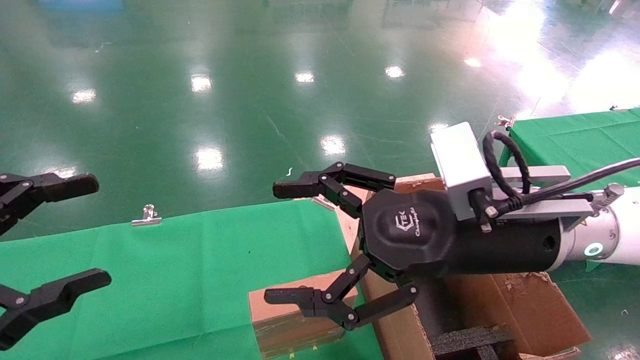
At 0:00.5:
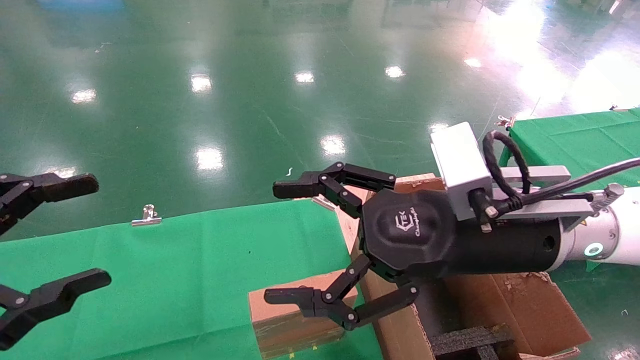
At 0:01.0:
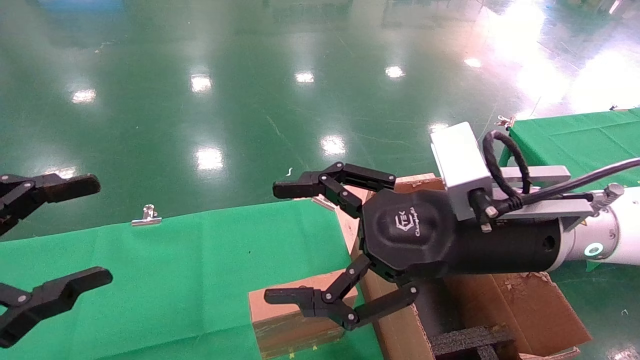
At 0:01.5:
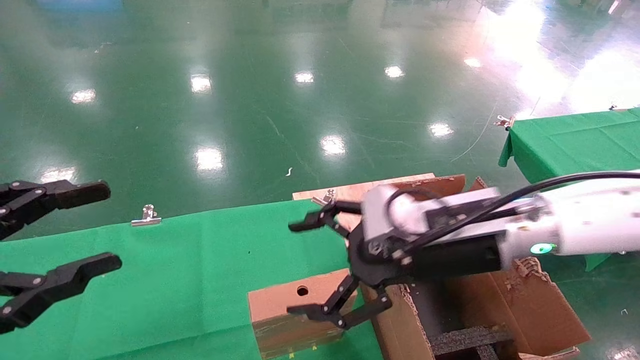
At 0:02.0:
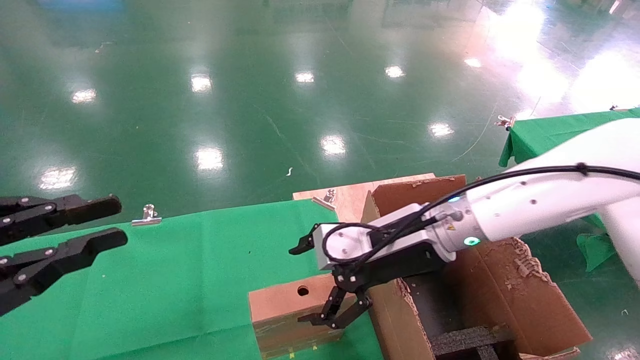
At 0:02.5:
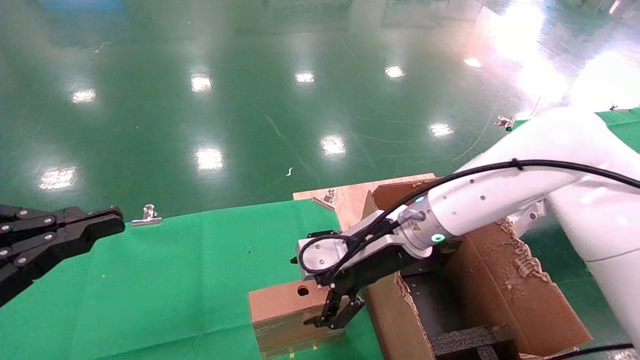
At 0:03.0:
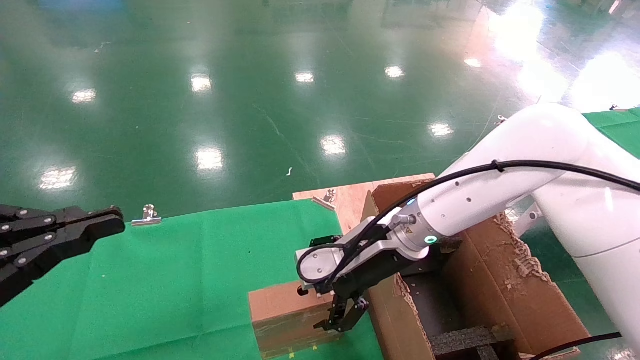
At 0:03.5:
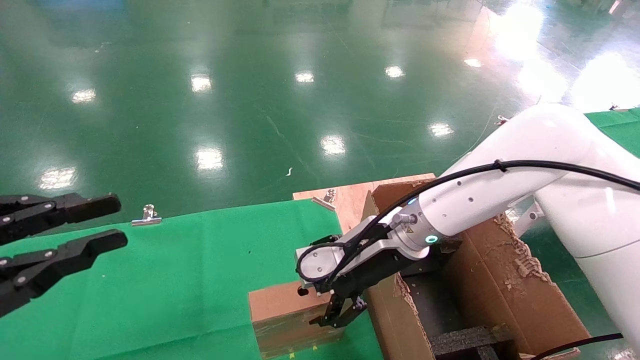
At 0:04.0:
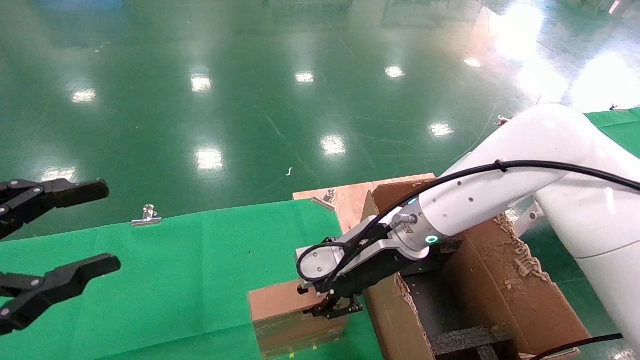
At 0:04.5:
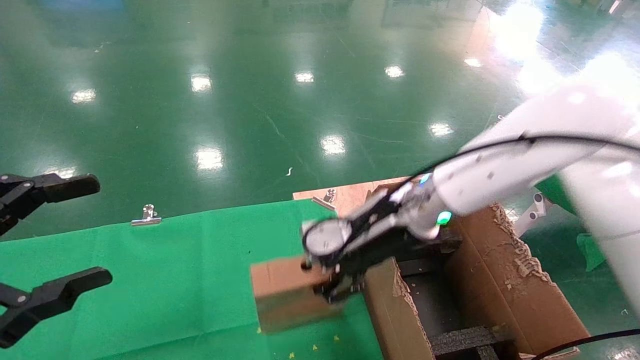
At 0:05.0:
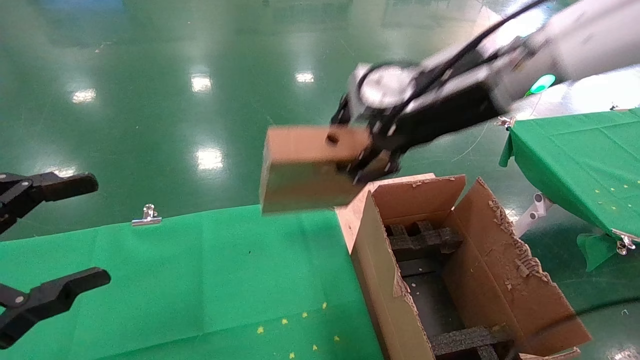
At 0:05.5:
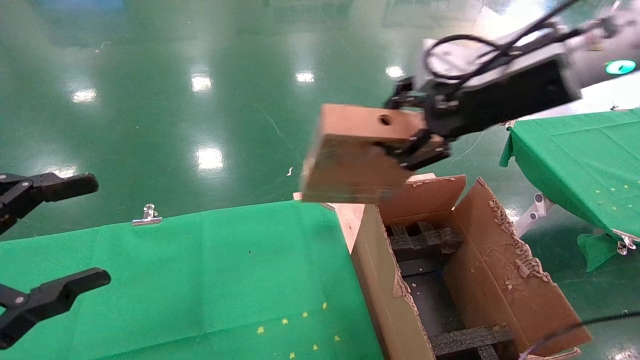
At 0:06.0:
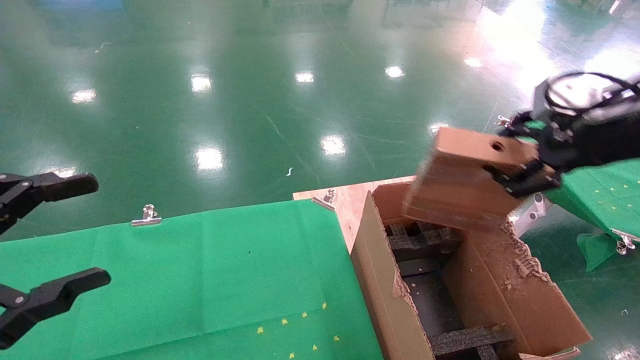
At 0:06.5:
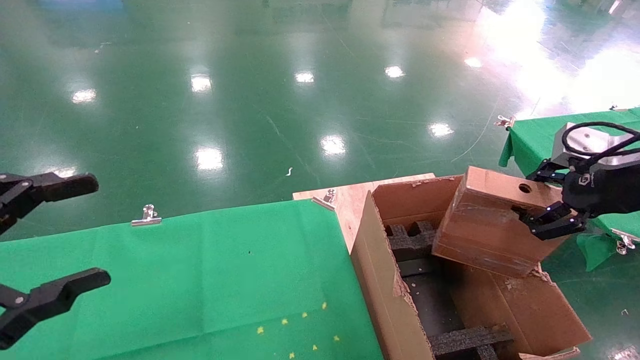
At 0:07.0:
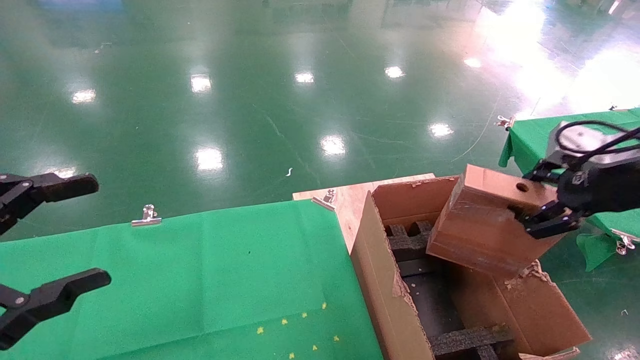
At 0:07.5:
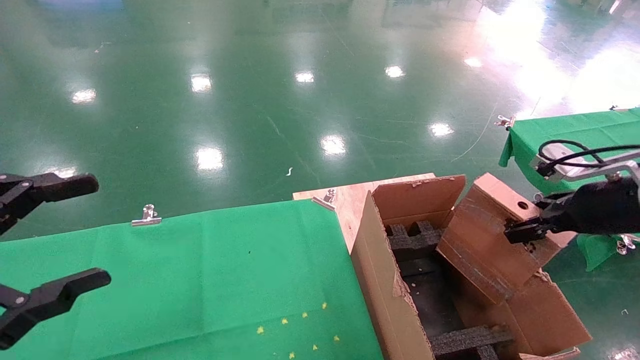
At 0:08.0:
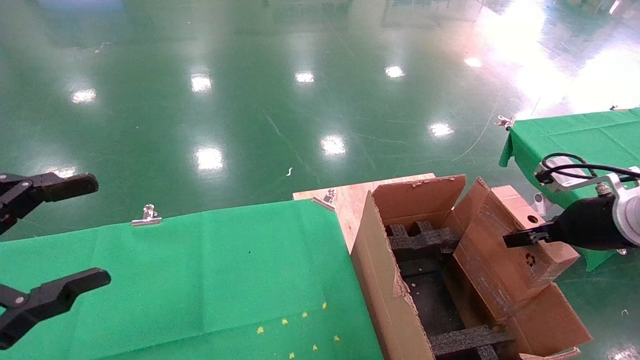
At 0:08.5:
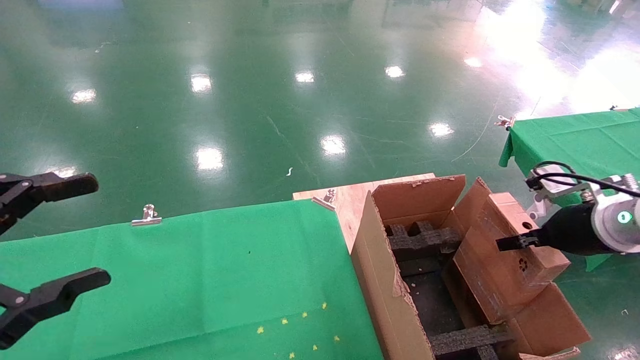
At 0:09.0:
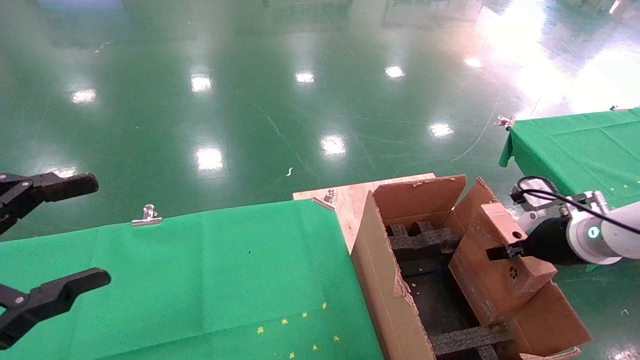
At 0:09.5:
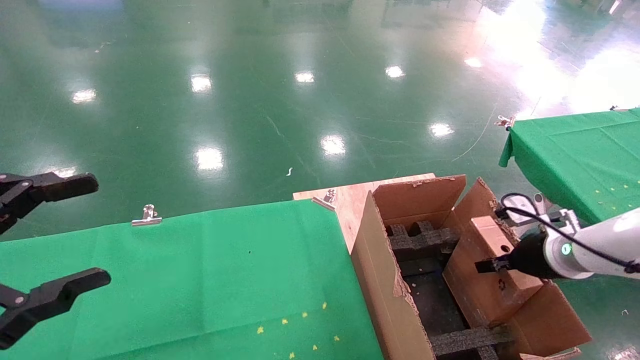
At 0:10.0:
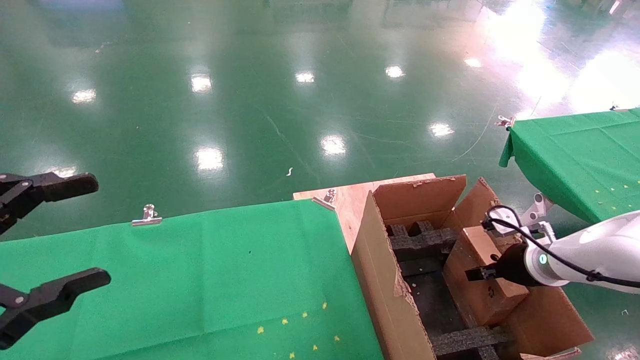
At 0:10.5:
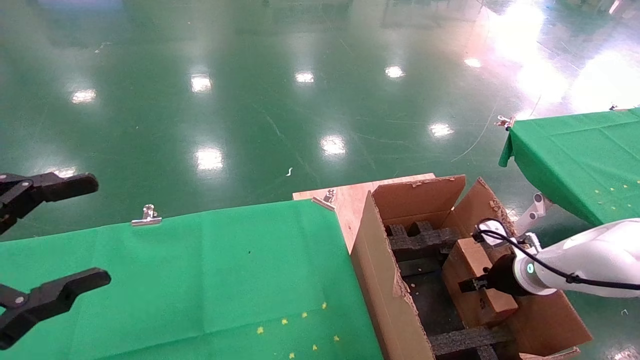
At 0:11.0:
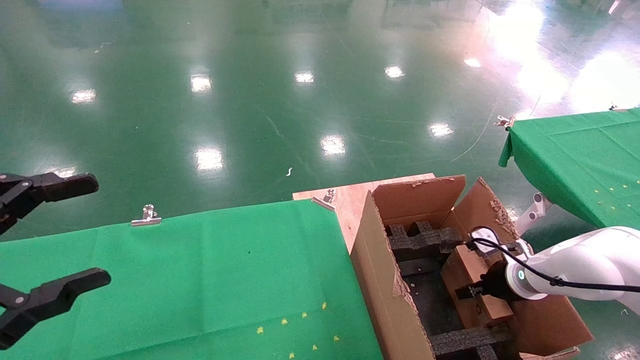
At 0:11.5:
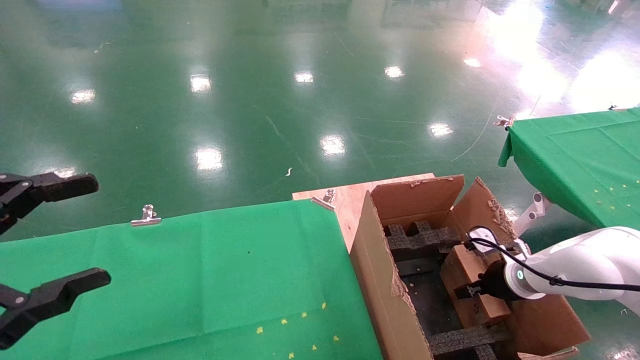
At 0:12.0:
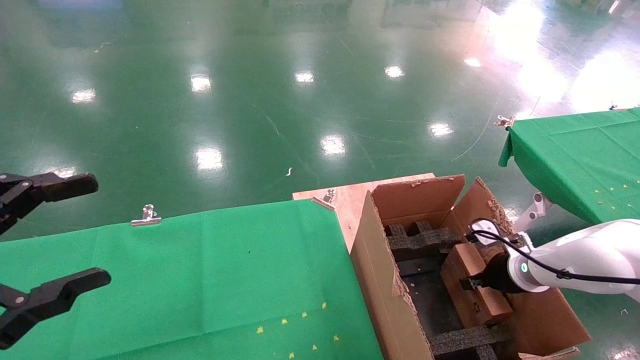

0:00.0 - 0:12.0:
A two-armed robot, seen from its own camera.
Task of the whole recording: using a robotic arm to pick up a cardboard box and palace it the carton.
Step, 0:01.5 - 0:04.0: Pick up the mouse and the power cord paper box.
0:00.0 - 0:02.0: The right gripper shifts roughly 10 cm forward and downward, while the left gripper closes.
0:02.0 - 0:04.0: The right gripper closes up; the left gripper closes and opens again.
0:04.0 - 0:06.0: The right gripper travels to the right, upward and backward by approximately 30 cm, and closes up. Meanwhile the left gripper opens.
0:06.0 - 0:08.0: The right gripper heads downward, covering roughly 15 cm.
0:08.0 - 0:10.0: The right gripper heads downward and forward, covering approximately 15 cm.
0:10.0 - 0:12.0: There are only small adjustments of the grippers.

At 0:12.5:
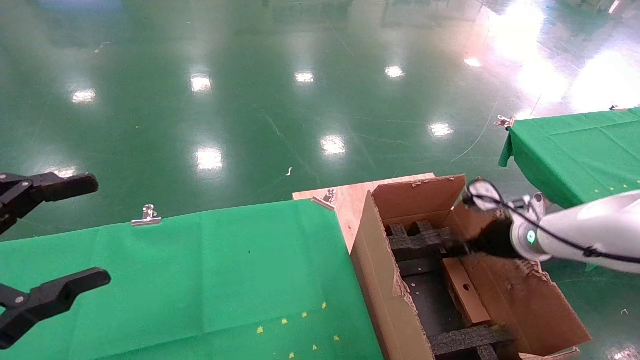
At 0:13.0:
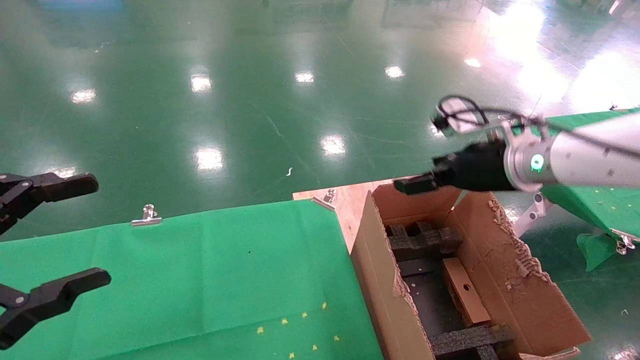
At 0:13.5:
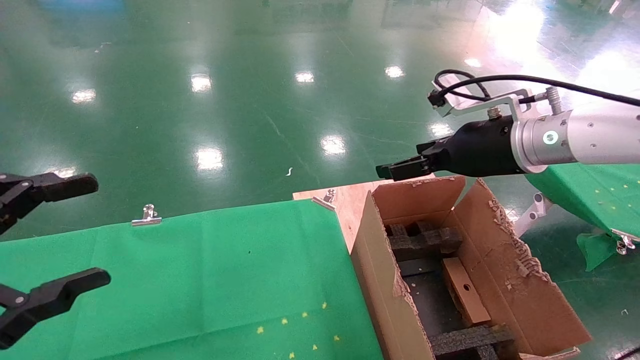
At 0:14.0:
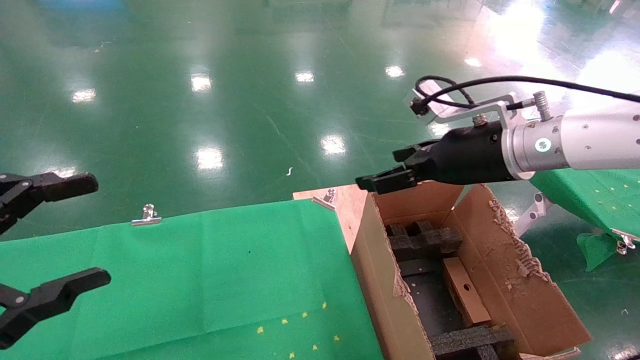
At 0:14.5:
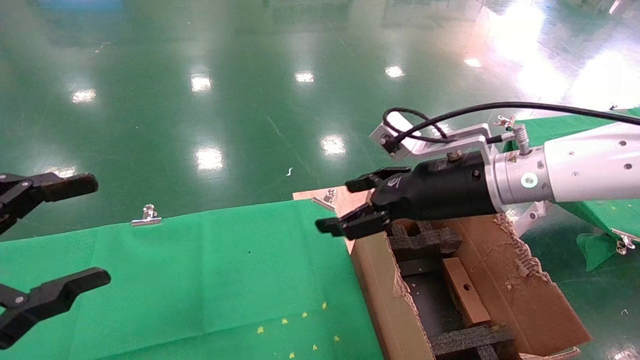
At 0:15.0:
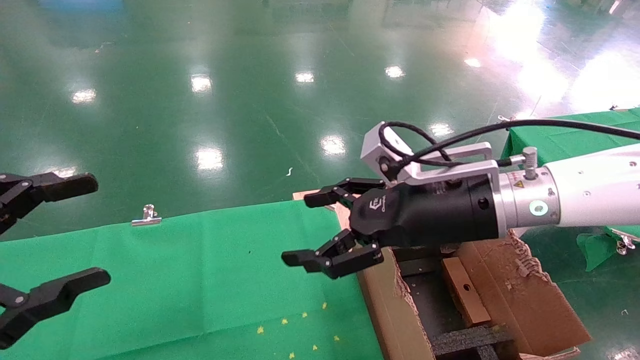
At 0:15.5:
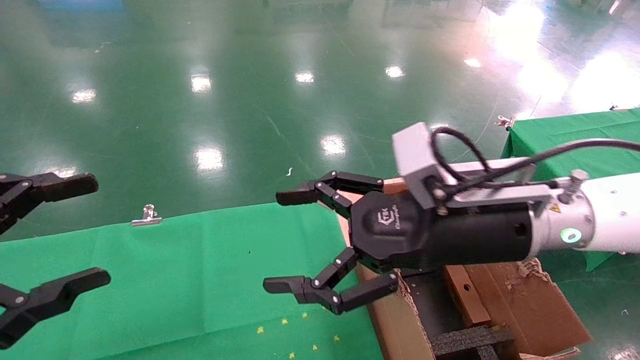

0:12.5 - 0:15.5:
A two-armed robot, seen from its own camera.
Task of the whole recording: using a robotic arm to pick up a cardboard box and palace it the carton.
0:12.5 - 0:14.0: The right gripper shifts some 20 cm upward and to the left.
0:14.0 - 0:15.5: The right gripper shifts roughly 10 cm backward and to the left.
